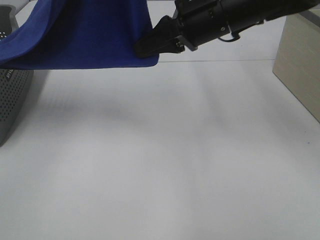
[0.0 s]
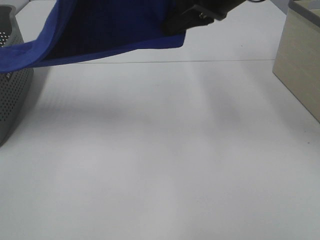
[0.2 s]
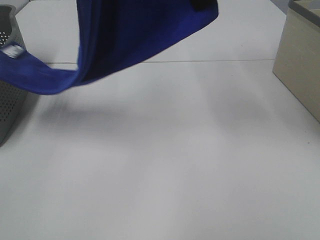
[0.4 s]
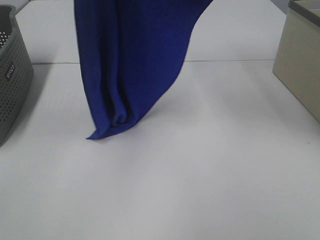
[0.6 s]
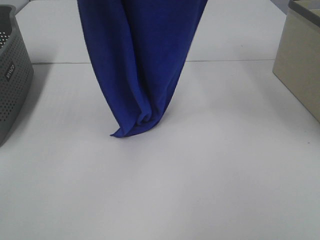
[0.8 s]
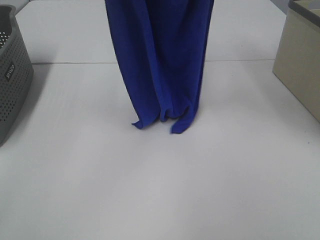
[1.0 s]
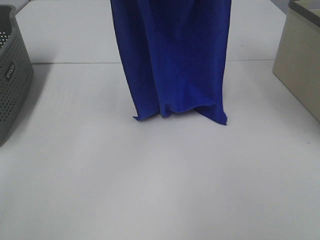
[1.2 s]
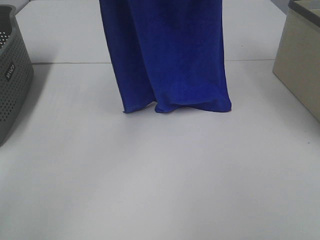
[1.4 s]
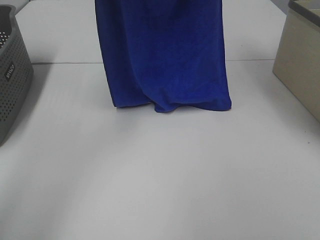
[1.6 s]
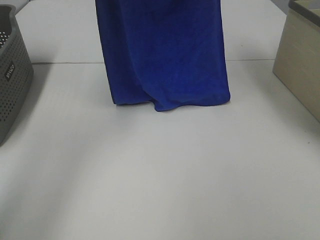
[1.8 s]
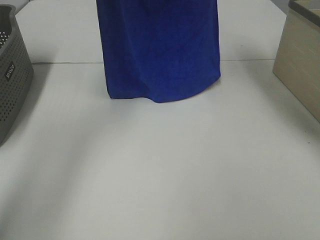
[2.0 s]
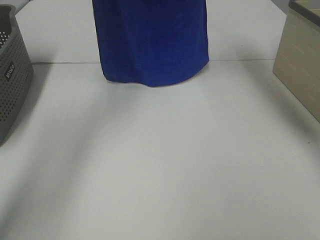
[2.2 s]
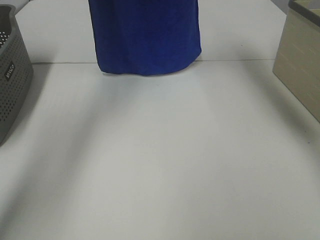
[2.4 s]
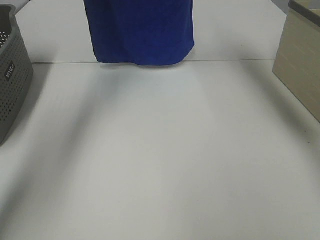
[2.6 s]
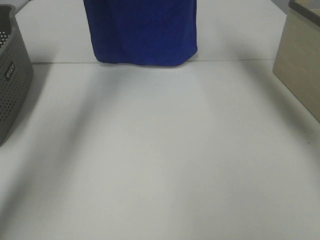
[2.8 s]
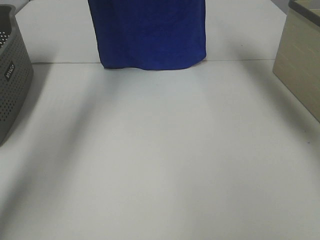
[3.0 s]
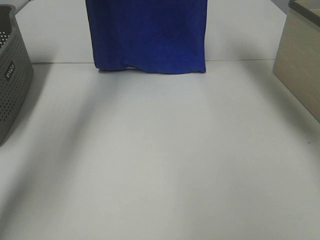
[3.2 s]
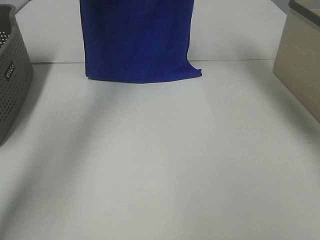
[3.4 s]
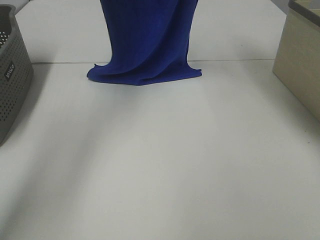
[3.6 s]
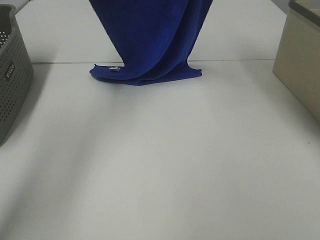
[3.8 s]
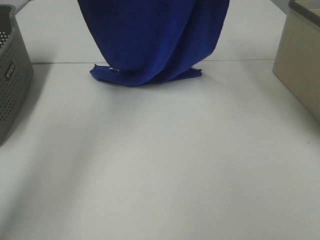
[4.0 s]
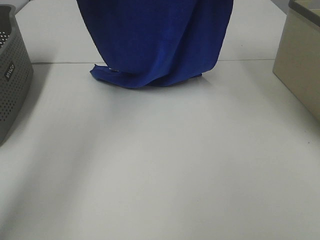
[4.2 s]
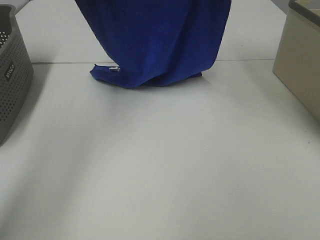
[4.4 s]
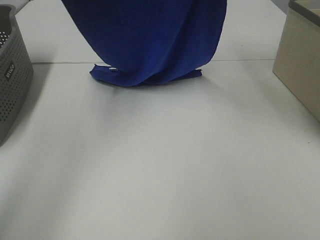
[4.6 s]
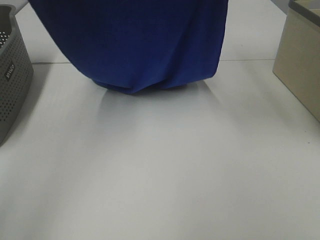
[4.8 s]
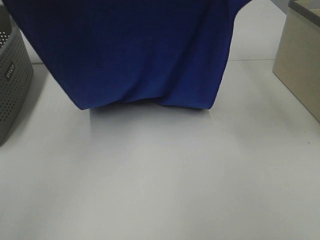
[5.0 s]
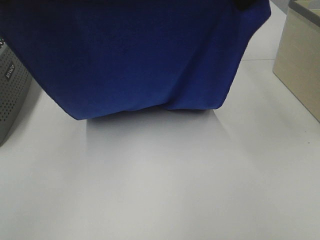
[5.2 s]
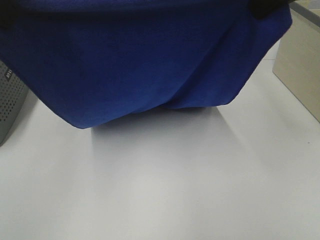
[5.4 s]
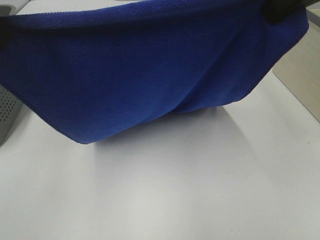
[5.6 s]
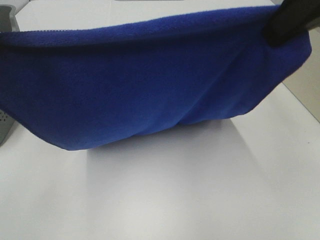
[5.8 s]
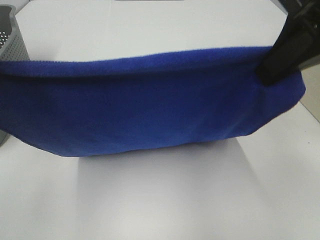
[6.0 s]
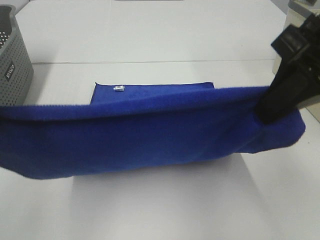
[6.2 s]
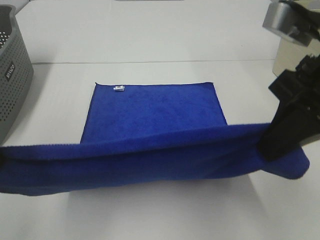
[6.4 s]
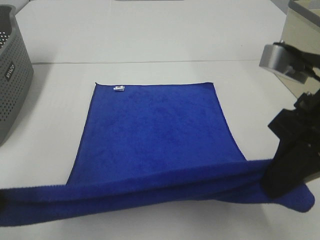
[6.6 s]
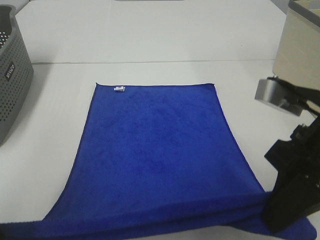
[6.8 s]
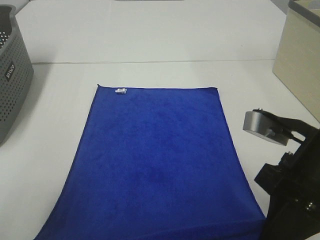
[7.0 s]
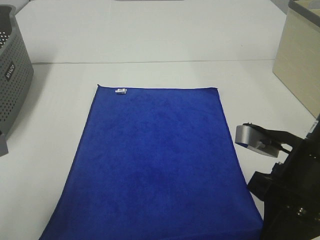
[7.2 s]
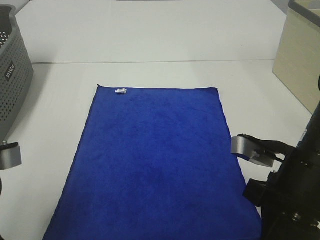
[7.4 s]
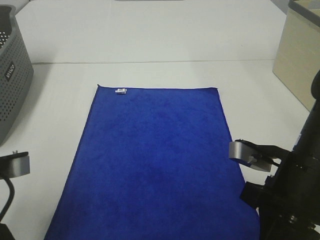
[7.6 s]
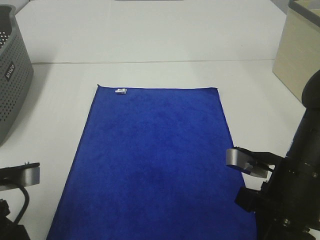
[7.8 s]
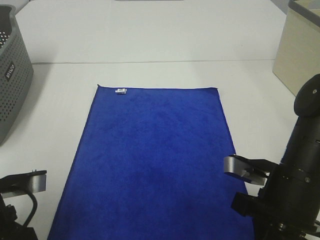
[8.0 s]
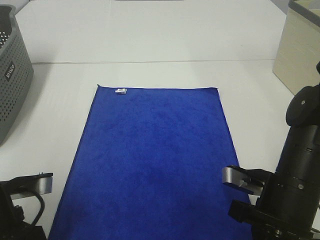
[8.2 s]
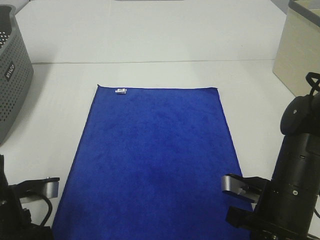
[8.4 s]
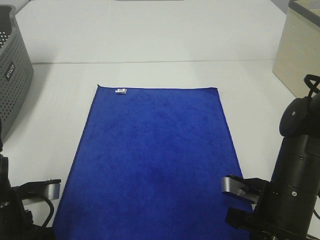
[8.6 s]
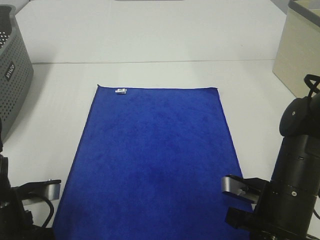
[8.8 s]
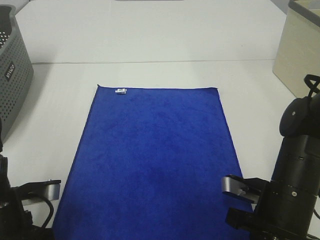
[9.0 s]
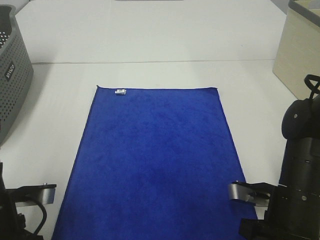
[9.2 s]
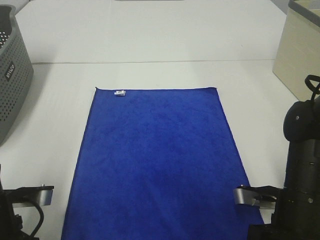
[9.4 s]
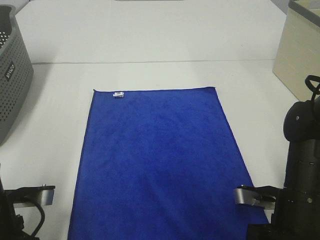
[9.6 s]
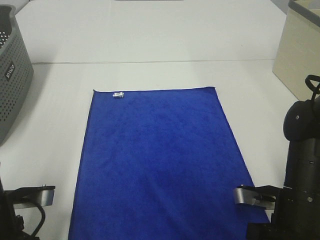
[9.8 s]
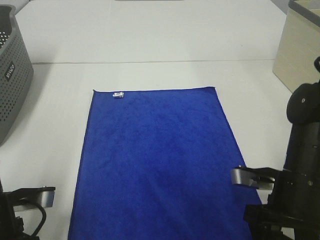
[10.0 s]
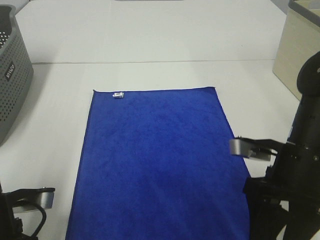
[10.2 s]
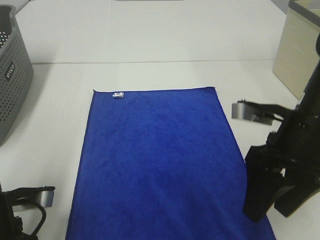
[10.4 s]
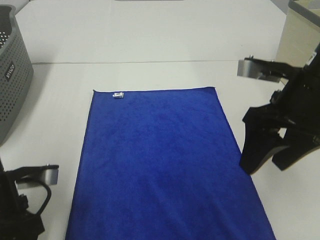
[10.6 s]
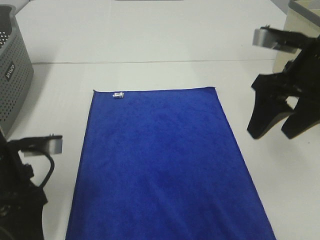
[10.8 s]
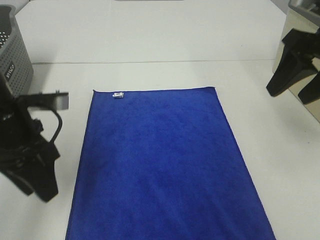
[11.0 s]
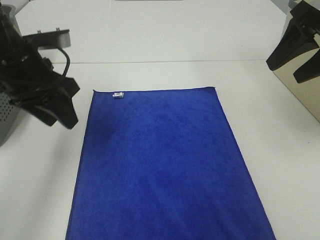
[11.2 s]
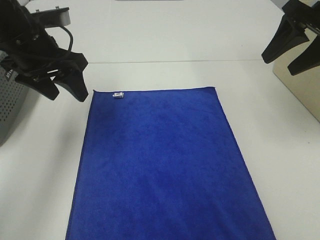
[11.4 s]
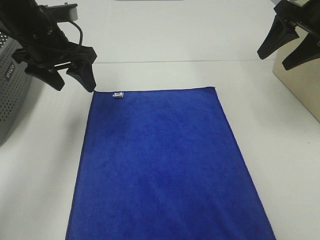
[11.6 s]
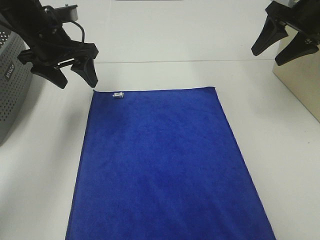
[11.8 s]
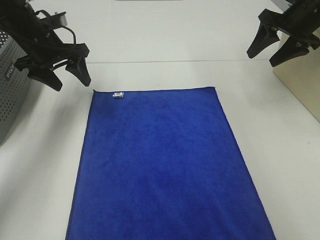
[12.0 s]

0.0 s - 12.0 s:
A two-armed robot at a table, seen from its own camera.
Task of the whole recording: Remove the towel and place it.
Step, 0.0 s - 4.8 s: Left hand: spread the blue towel flat on the table.
Step, 0.0 s - 4.8 s: Right hand: spread the blue towel flat on the table.
0.0 s - 1.6 s: The right gripper moves upward, about 20 cm, while the left gripper is displaced forward by roughly 15 cm.
1.6 s - 3.0 s: The two grippers go some 10 cm forward.
3.0 s - 4.4 s: The two grippers go about 10 cm backward.
4.4 s - 6.0 s: Both grippers travel together backward, about 20 cm.
6.0 s - 7.6 s: Both grippers travel together downward, some 20 cm.
7.6 s - 9.0 s: Both grippers move downward, roughly 5 cm.
9.0 s - 10.4 s: The left gripper opens up. Meanwhile the right gripper shifts approximately 10 cm upward, and opens.
10.4 s - 12.0 s: The right gripper shifts approximately 25 cm forward and to the right, while the left gripper travels forward by roughly 30 cm.

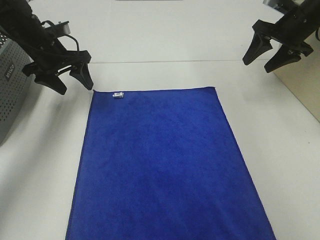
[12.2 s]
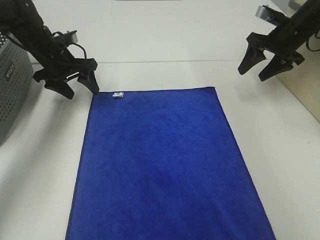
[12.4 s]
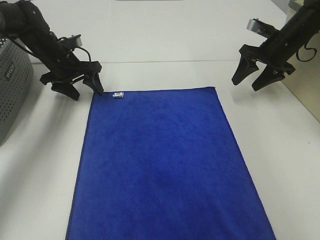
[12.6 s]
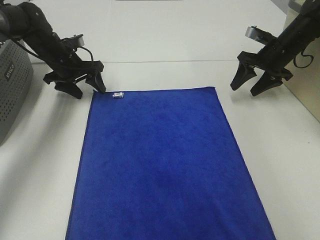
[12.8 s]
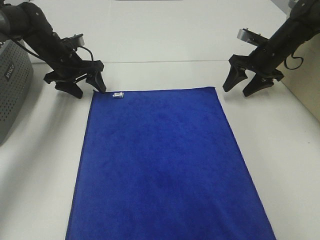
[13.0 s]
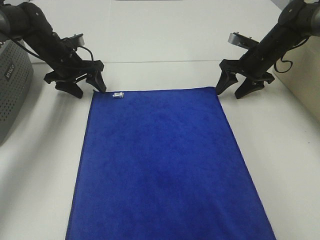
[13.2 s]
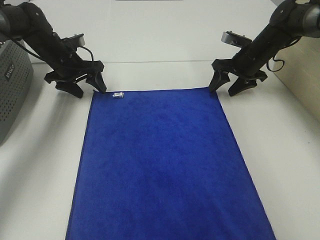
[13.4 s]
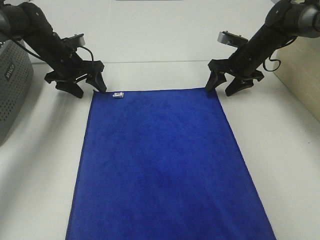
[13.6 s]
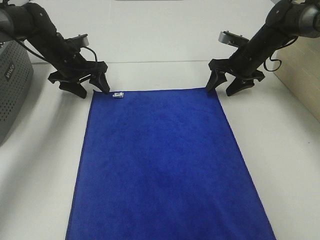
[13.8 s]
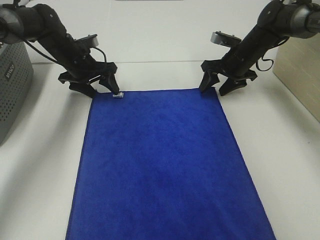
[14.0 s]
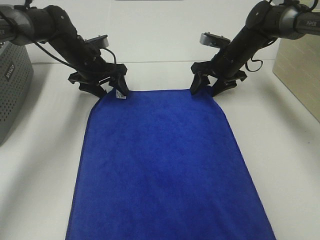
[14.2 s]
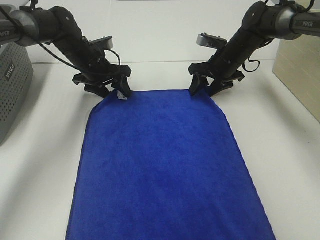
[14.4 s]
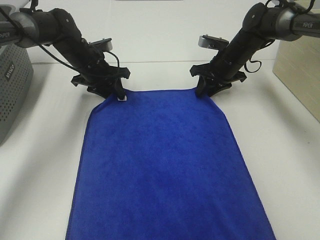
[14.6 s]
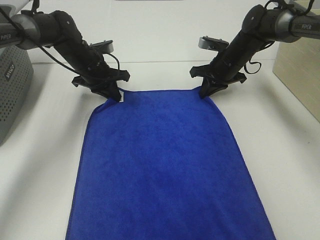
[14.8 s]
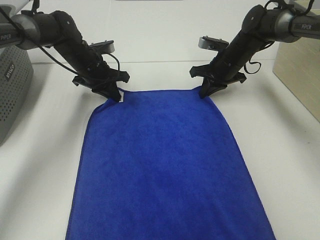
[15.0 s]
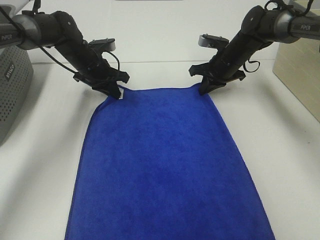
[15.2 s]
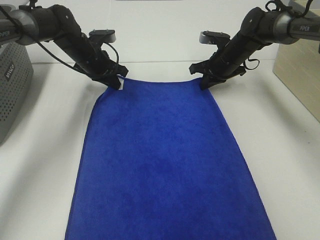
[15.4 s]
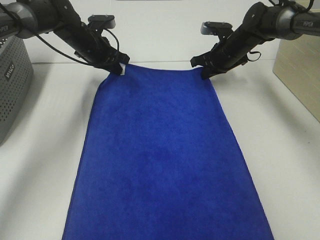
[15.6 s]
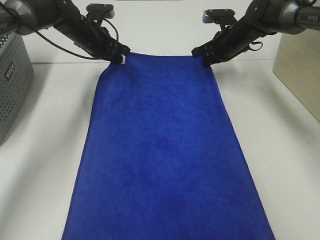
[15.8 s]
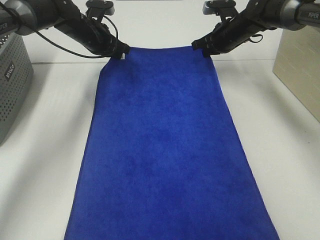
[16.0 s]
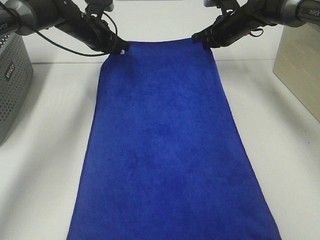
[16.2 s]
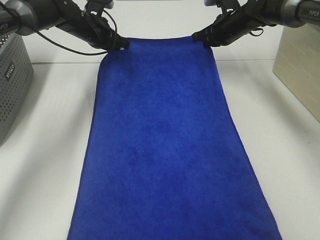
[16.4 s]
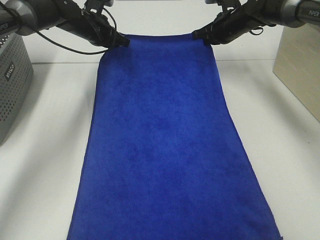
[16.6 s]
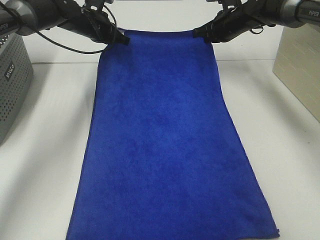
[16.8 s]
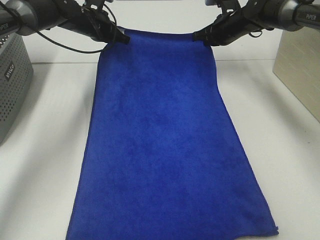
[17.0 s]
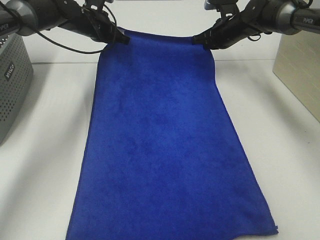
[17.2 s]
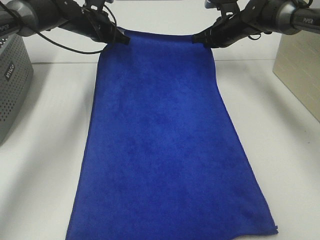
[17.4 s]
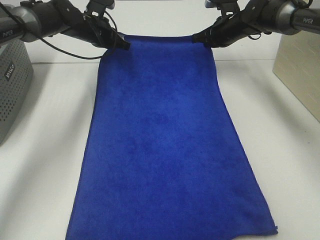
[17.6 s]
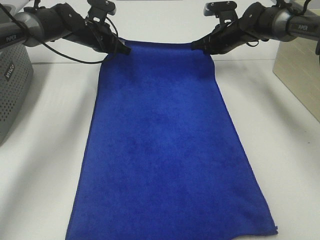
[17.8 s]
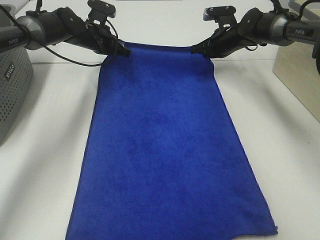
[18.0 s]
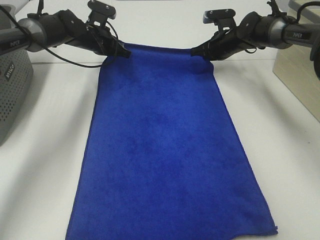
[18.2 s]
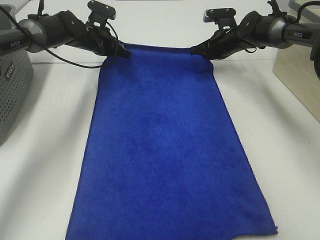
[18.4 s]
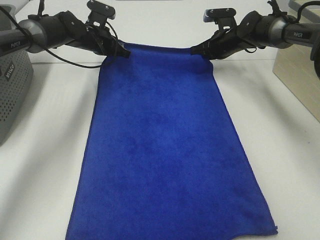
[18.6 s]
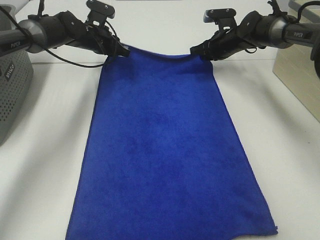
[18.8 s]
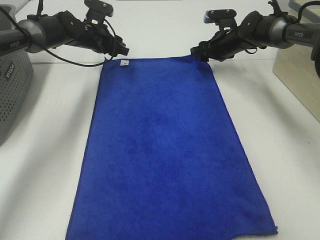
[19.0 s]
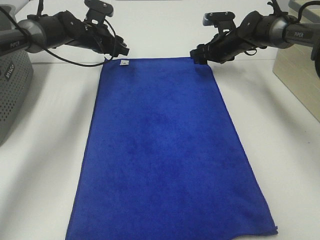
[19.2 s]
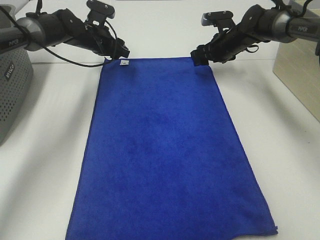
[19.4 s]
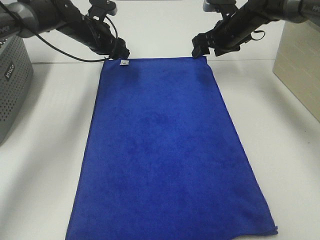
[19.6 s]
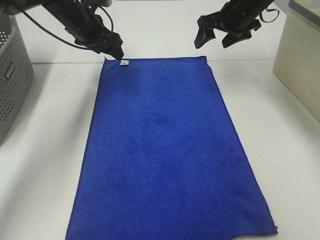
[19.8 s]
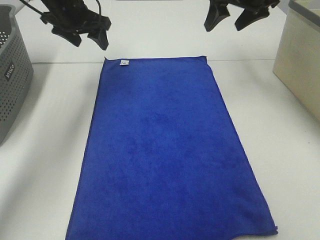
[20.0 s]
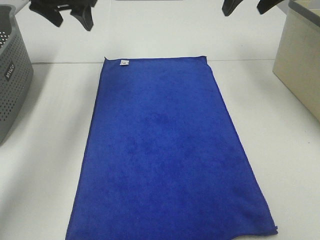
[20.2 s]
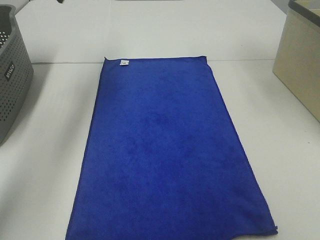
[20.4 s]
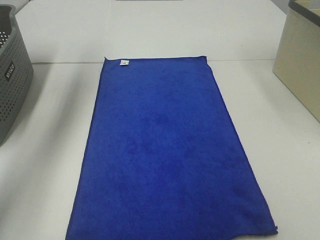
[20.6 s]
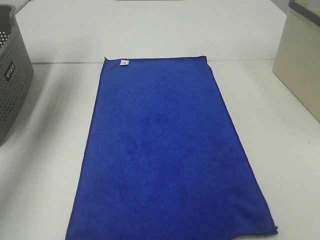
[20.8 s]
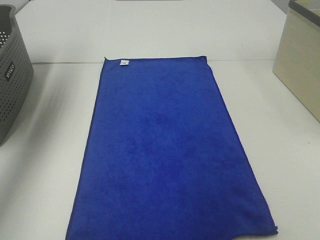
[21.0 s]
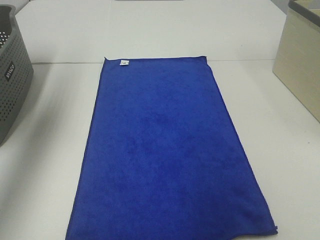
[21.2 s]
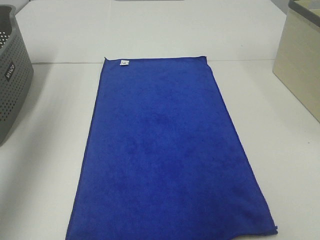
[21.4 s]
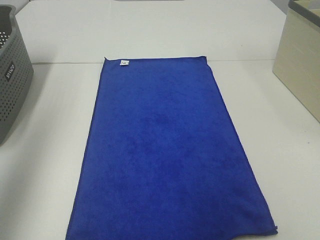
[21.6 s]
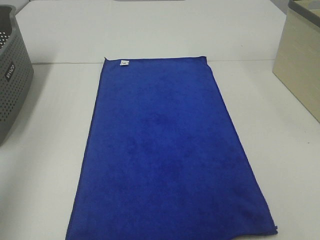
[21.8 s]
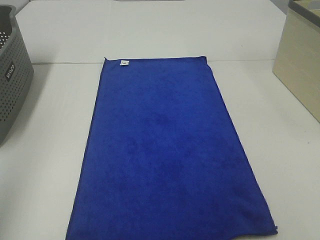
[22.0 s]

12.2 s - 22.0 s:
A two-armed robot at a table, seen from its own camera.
Task of the whole recording: Remove the towel and place it.
12.2 s - 13.6 s: The right gripper goes roughly 10 cm downward and to the left. Meanwhile the left gripper goes roughly 5 cm downward.
13.6 s - 15.0 s: The left gripper moves to the right, about 5 cm, and closes; the right gripper closes up.
15.0 s - 16.4 s: The left gripper travels upward and forward by approximately 10 cm, while the right gripper moves upward, about 5 cm.
16.4 s - 17.8 s: The grippers stay close to where they were, moving slightly.
17.8 s - 19.2 s: The left gripper opens up, while the right gripper opens up.
19.2 s - 20.6 s: The left gripper goes approximately 30 cm upward, backward and to the left, while the right gripper travels upward and backward by some 35 cm.
20.6 s - 22.0 s: The left gripper shifts about 35 cm backward.
